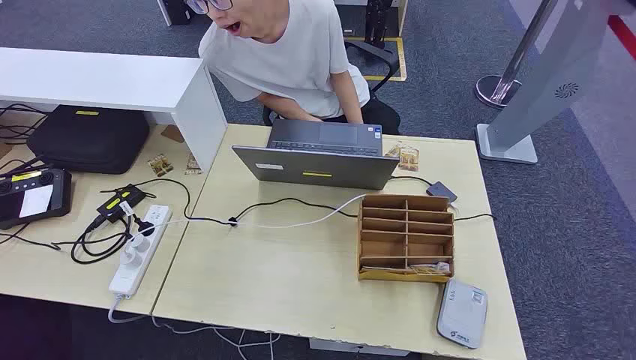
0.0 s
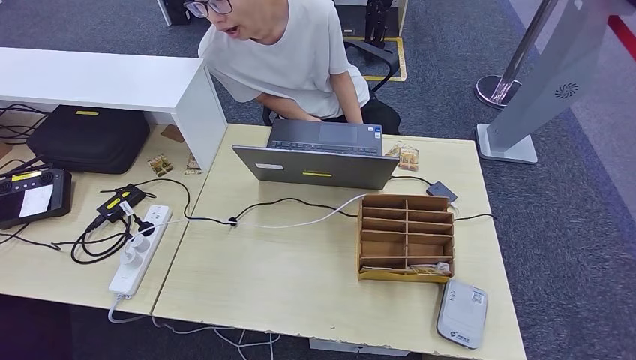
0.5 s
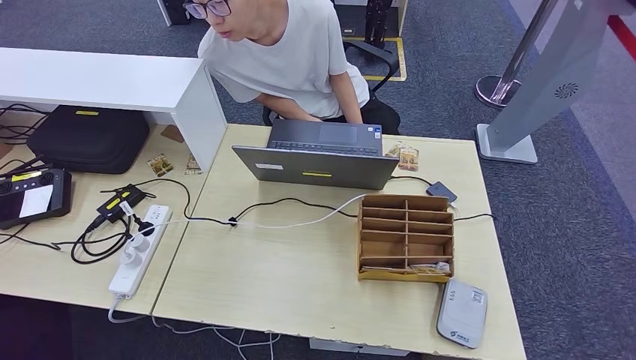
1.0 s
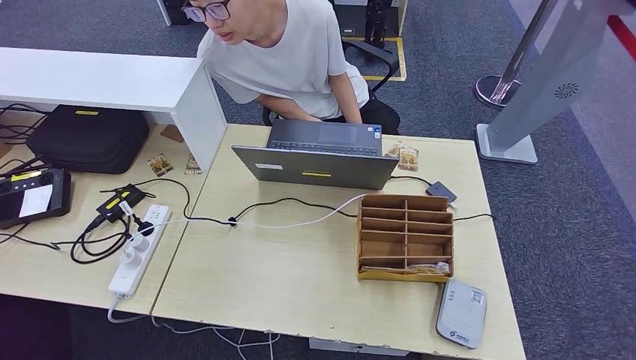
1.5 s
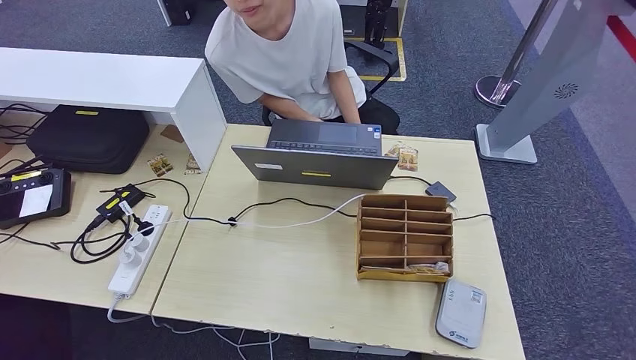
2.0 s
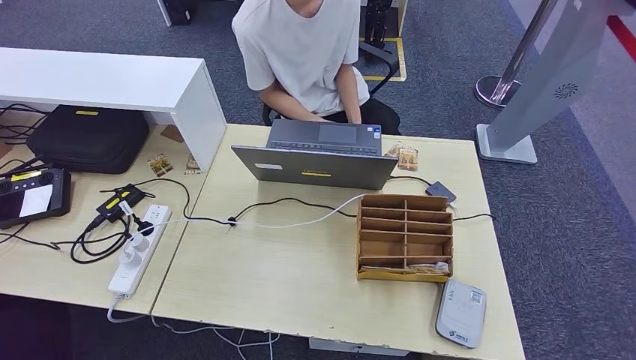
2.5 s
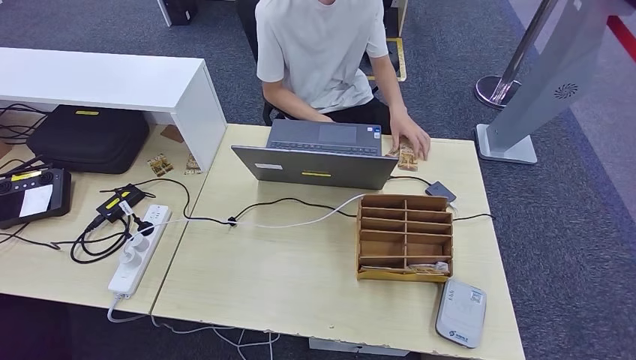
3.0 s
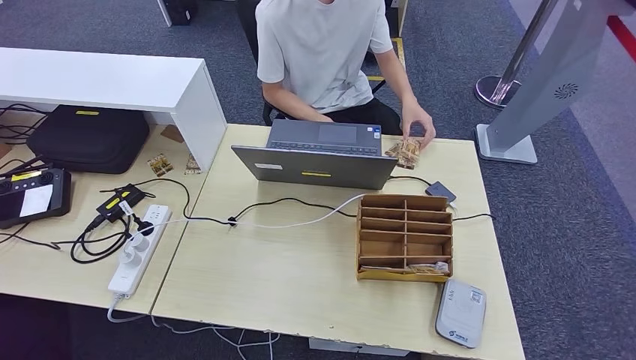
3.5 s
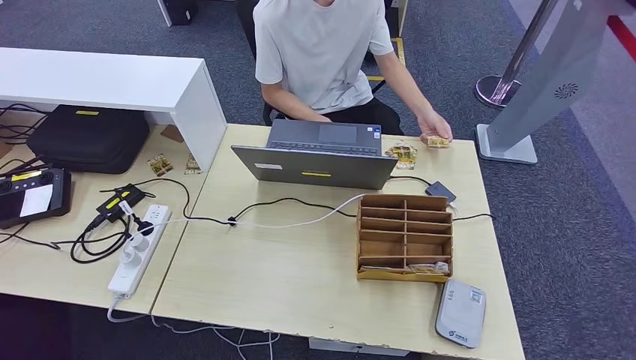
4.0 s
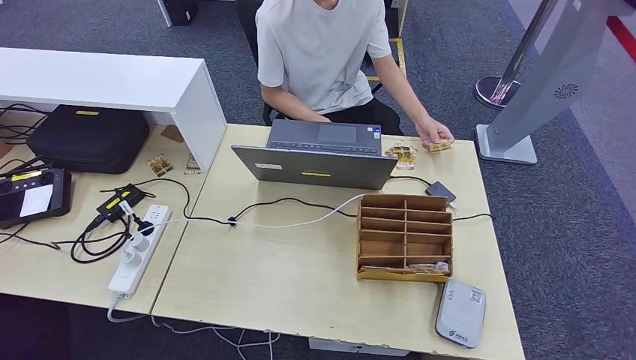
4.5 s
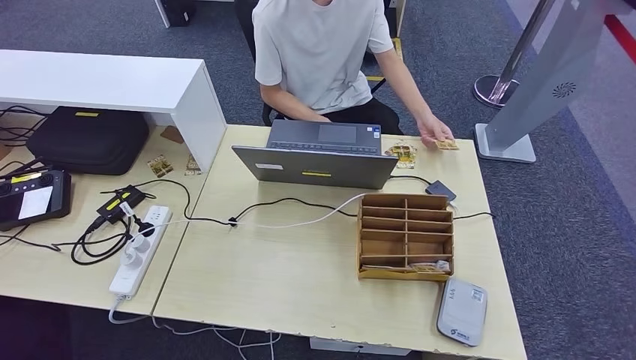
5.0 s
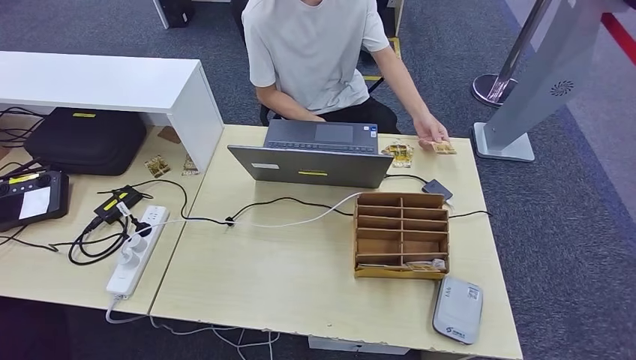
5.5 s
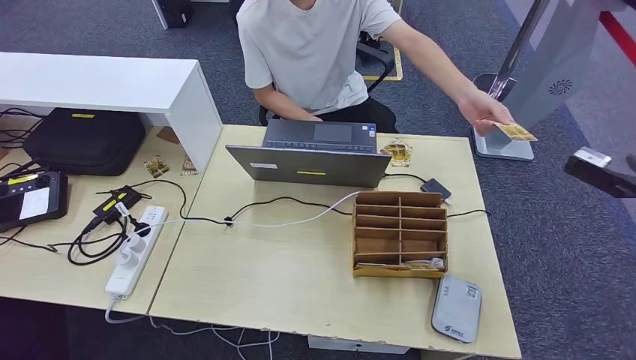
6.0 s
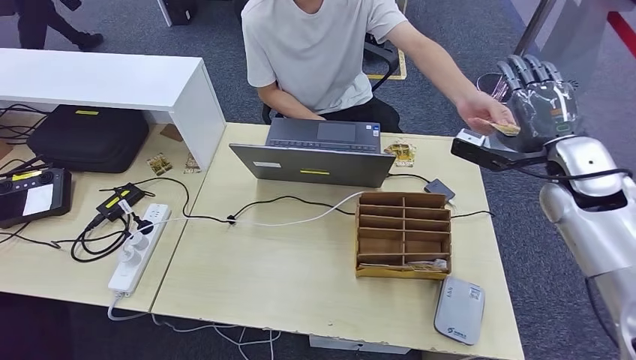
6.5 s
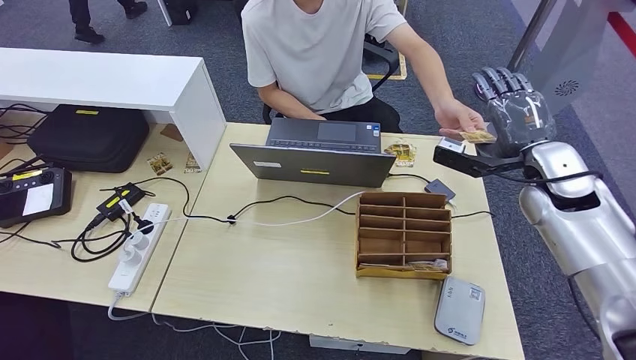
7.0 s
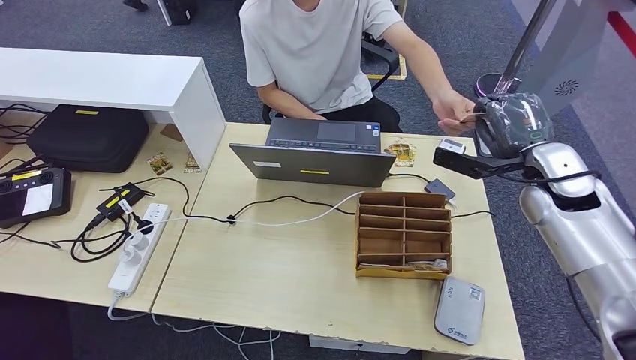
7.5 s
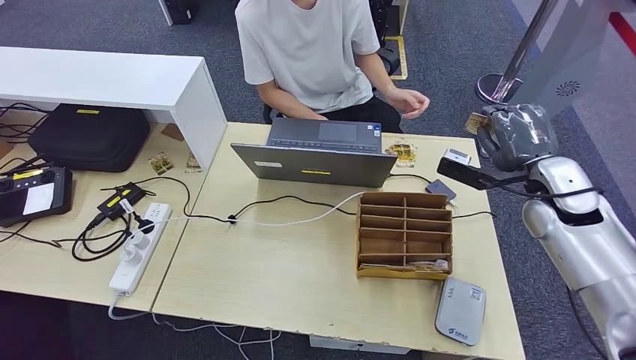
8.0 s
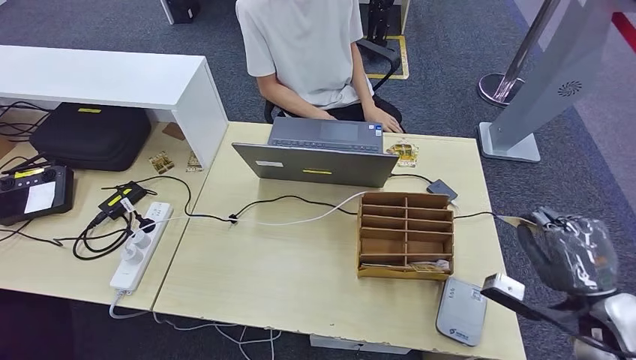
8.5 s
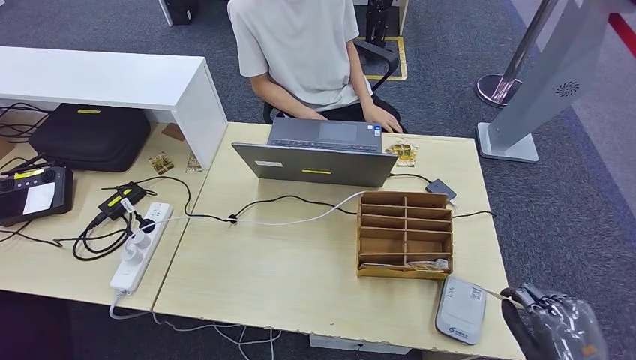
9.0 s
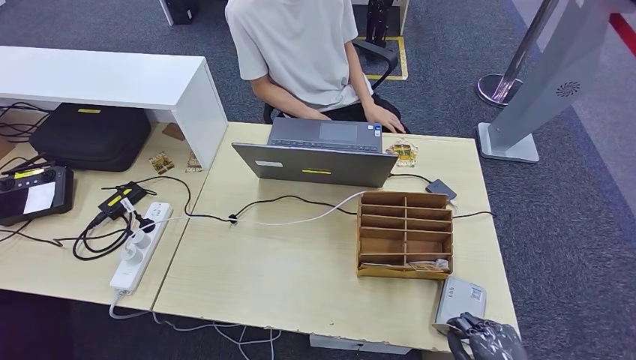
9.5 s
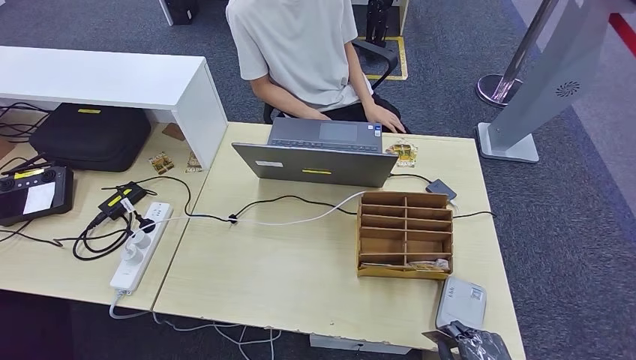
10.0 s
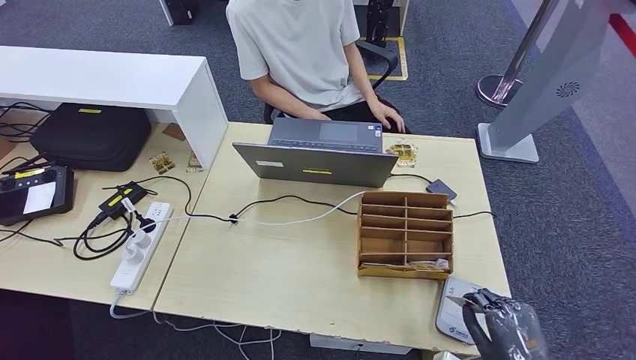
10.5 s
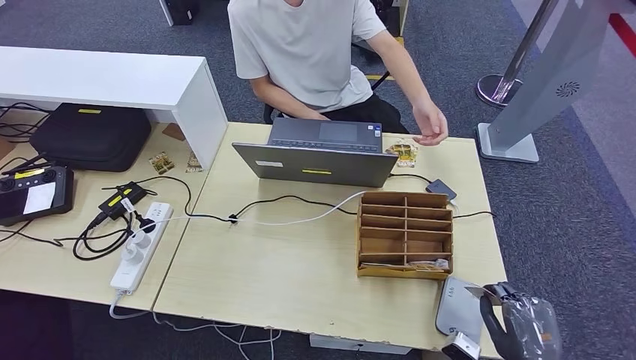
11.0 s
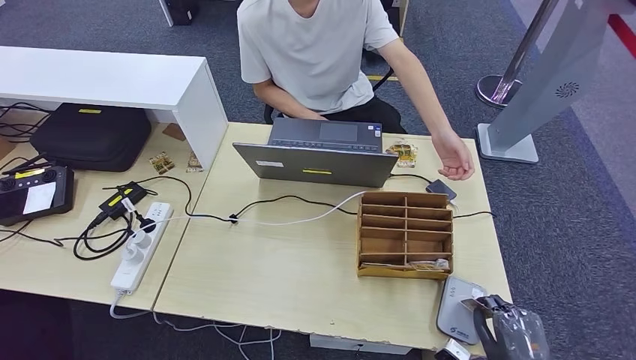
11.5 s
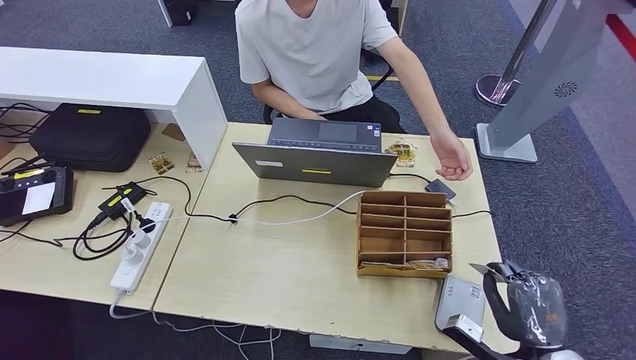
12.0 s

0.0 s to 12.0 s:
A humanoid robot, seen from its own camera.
Step, 0.0 to 6.0 s: Take the ID card from the person's hand.
Step, 6.5 to 11.5 s: Place the ID card on the card reader.
2.0 to 4.0 s: The right hand moves to the right, some 15 cm.
8.0 to 10.0 s: The right hand is displaced backward and downward by some 40 cm.
10.0 to 12.0 s: The right hand is displaced forward by approximately 10 cm.

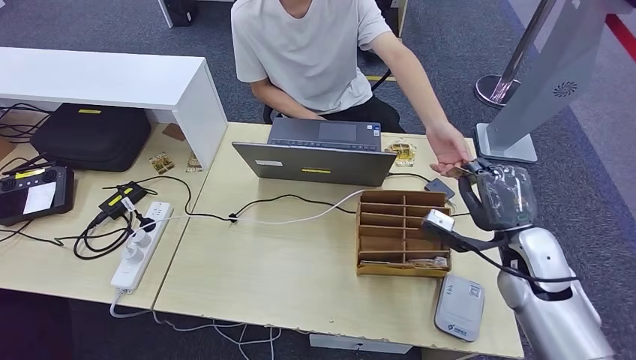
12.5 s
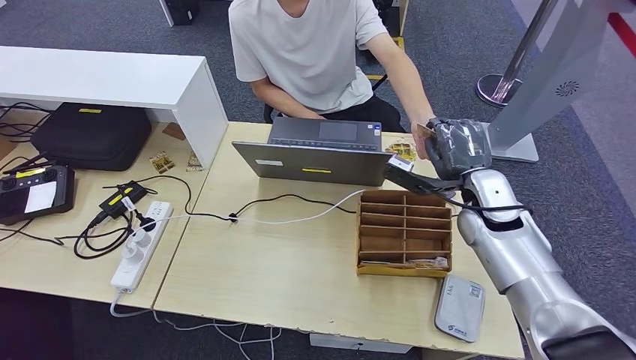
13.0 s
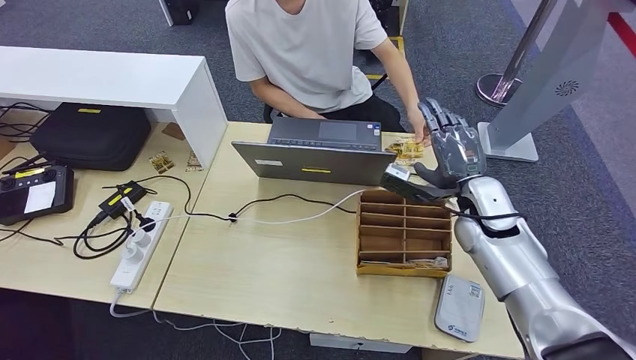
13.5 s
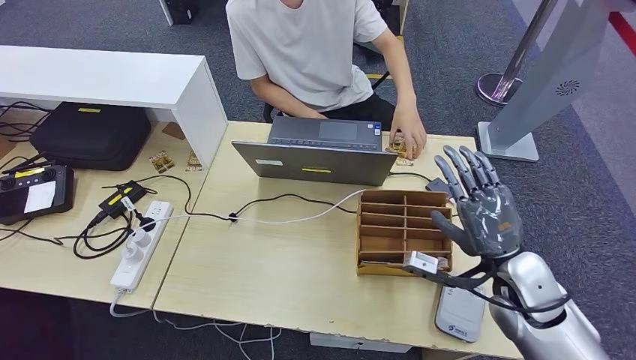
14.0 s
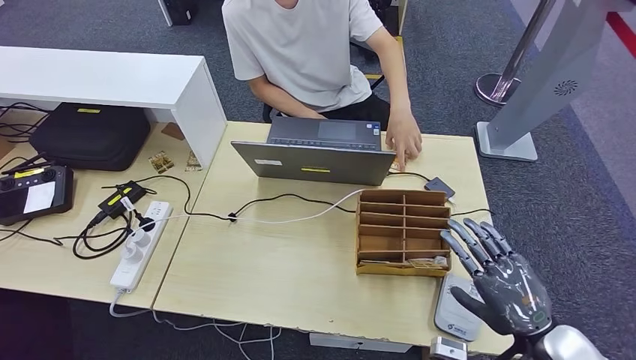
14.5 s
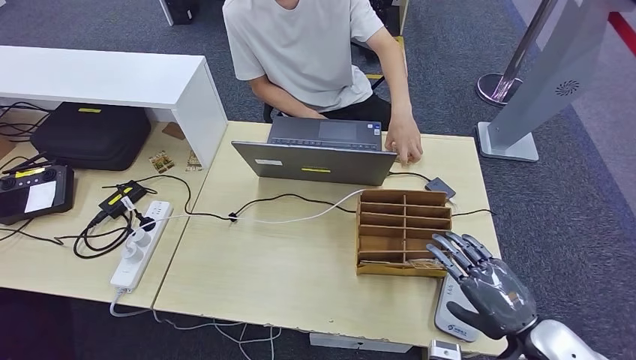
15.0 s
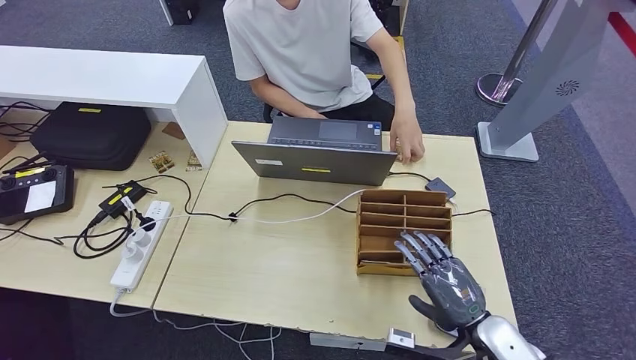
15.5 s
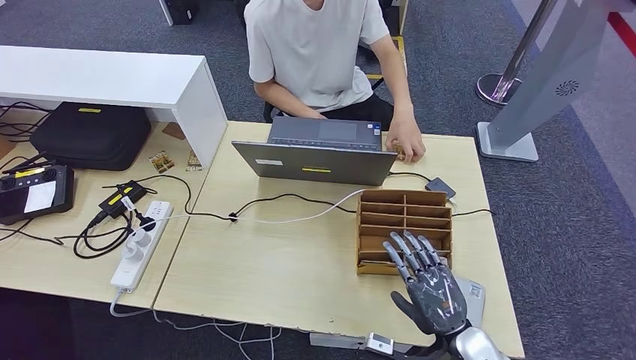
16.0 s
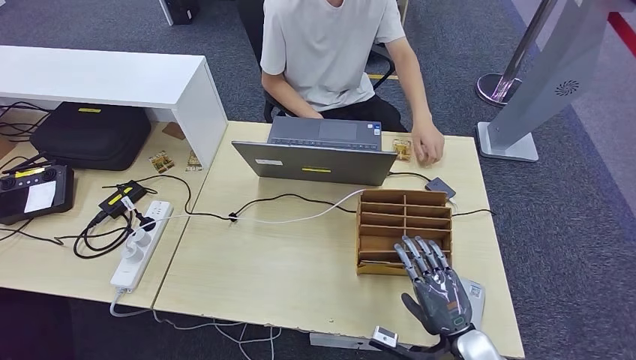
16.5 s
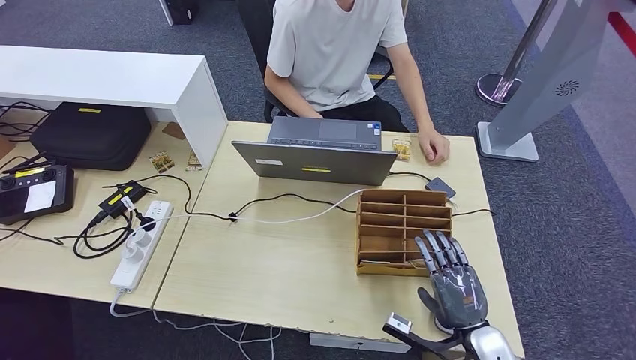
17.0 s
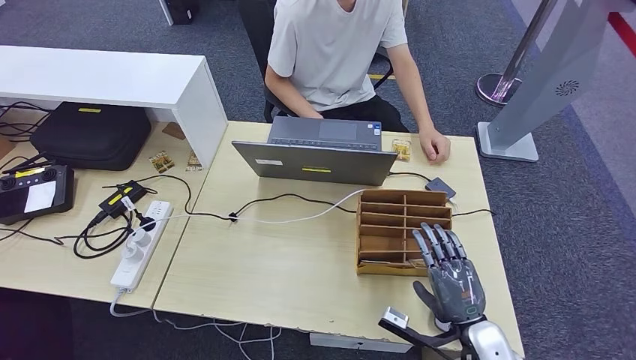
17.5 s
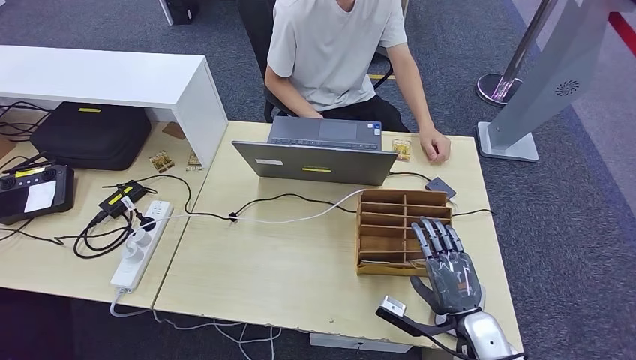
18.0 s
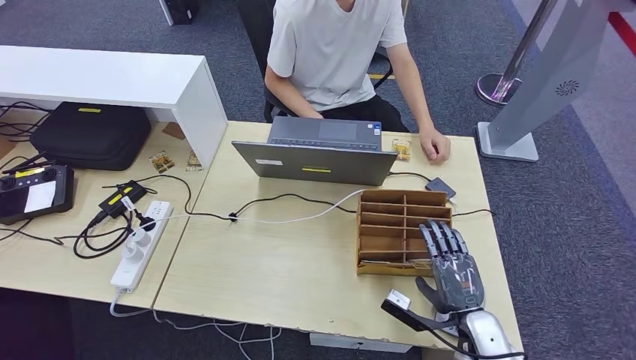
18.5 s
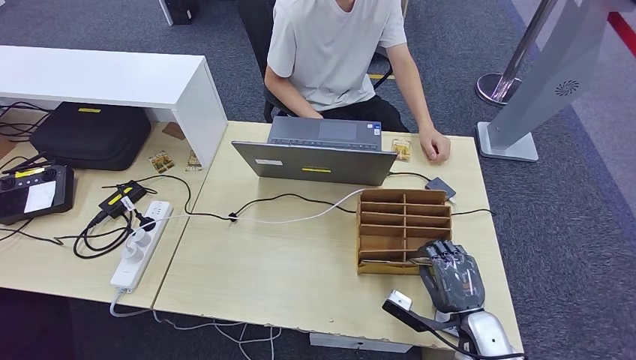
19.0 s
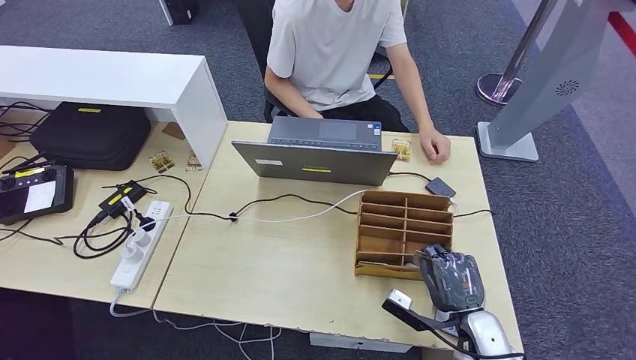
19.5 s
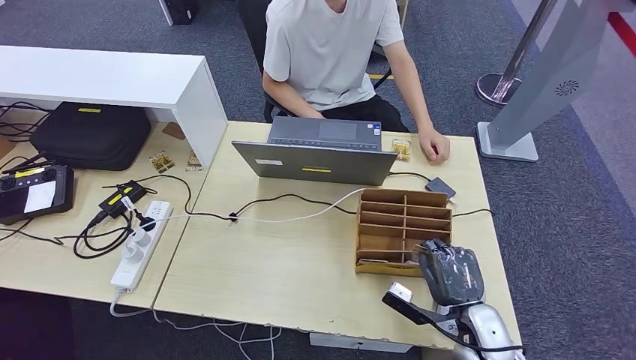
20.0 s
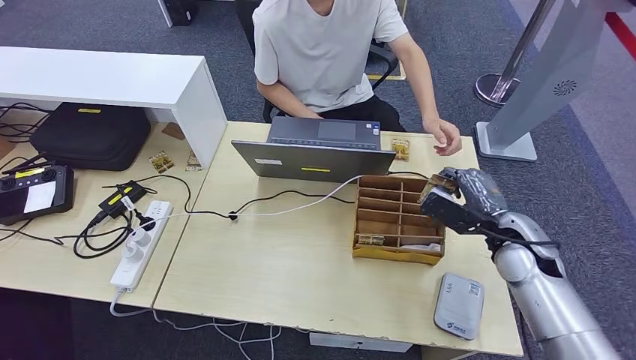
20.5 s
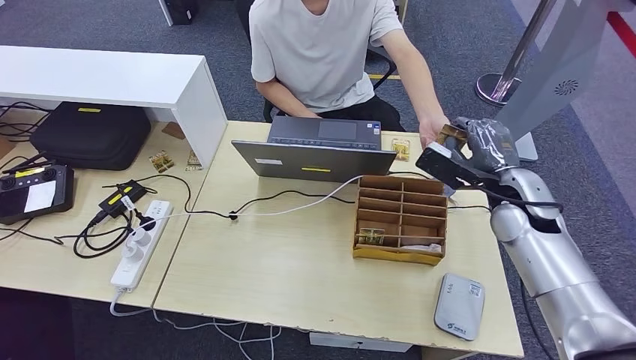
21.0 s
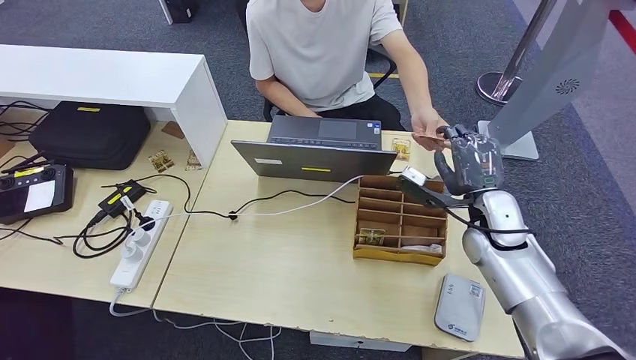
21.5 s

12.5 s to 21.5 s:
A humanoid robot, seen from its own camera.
Step, 14.0 to 19.5 s: Pick up the room key from the key card box.
Step, 20.0 to 21.5 s: Hand the room key to the person.
12.5 to 14.5 s: The right hand heads backward, covering some 15 cm.
14.5 to 17.0 s: The right hand heads downward and to the left, covering some 10 cm.
17.0 to 19.5 s: There are only small adjustments of the hands.
